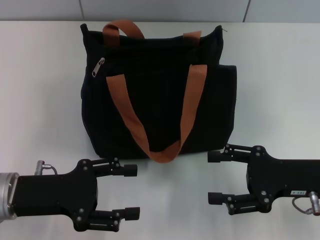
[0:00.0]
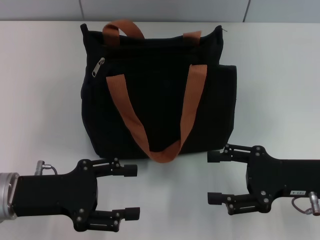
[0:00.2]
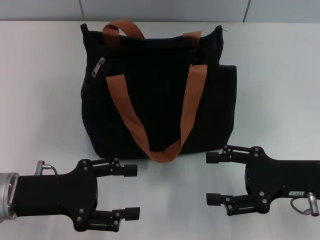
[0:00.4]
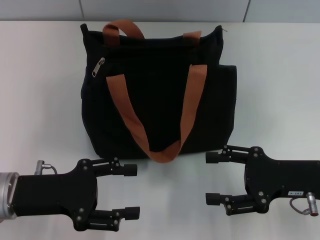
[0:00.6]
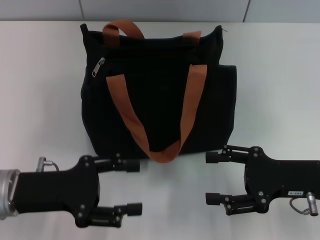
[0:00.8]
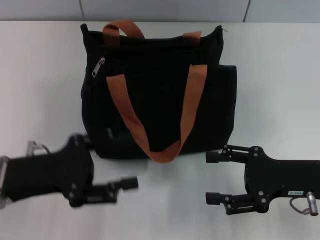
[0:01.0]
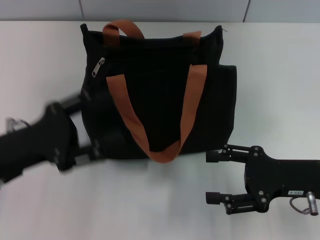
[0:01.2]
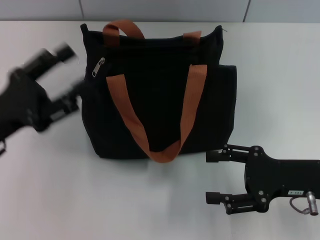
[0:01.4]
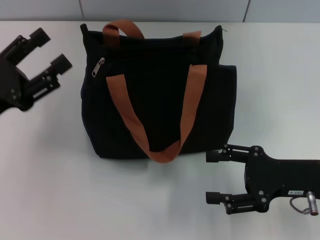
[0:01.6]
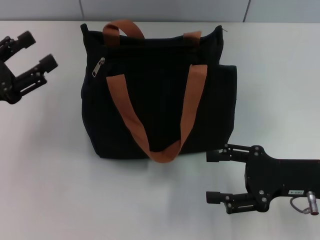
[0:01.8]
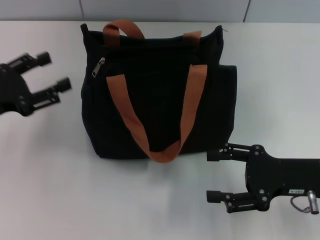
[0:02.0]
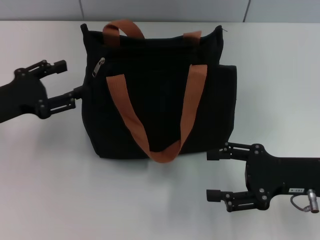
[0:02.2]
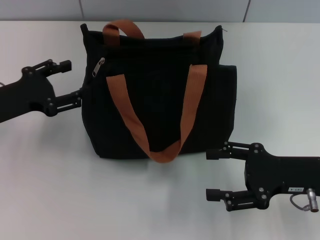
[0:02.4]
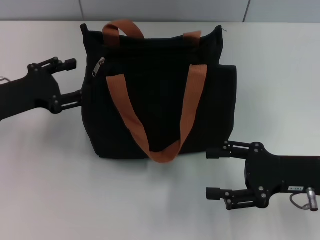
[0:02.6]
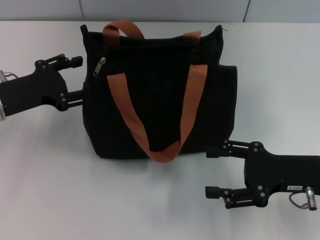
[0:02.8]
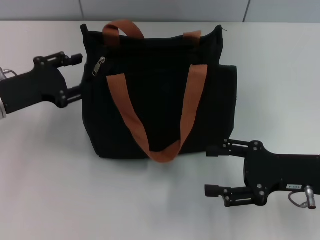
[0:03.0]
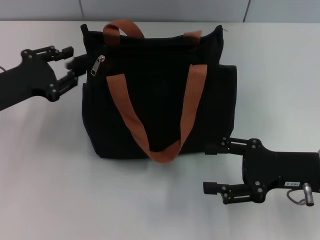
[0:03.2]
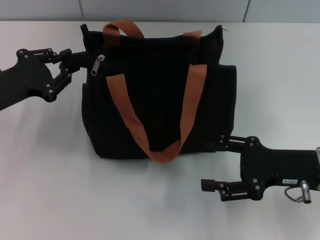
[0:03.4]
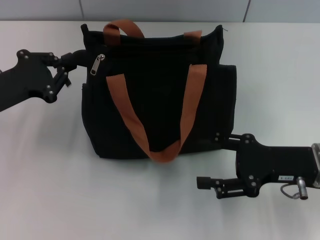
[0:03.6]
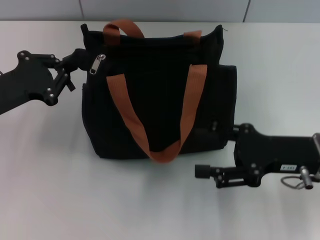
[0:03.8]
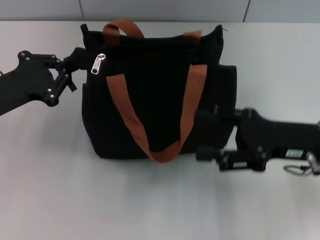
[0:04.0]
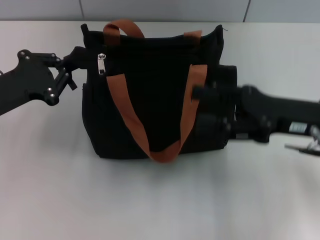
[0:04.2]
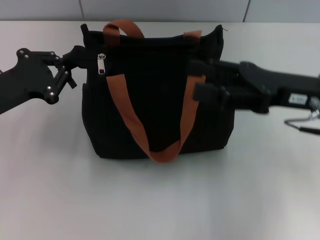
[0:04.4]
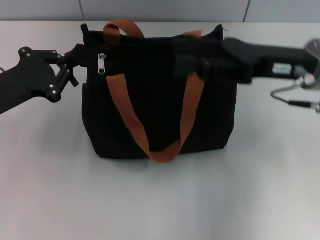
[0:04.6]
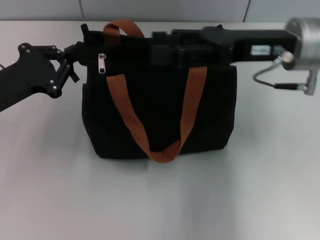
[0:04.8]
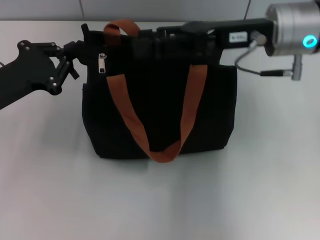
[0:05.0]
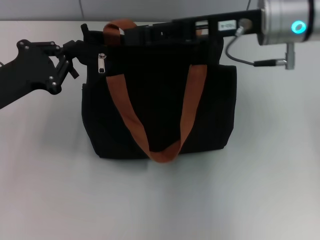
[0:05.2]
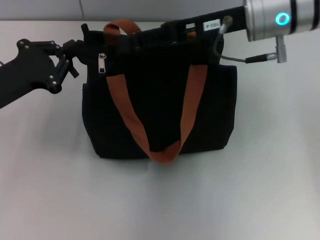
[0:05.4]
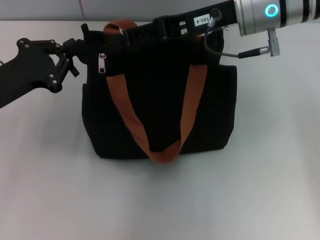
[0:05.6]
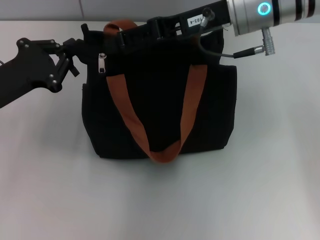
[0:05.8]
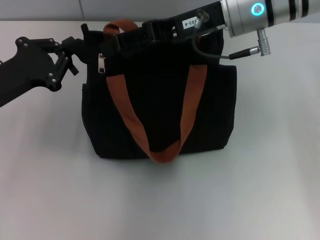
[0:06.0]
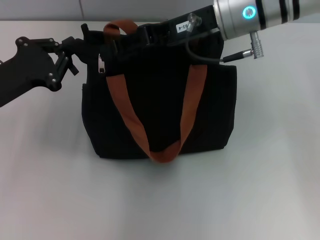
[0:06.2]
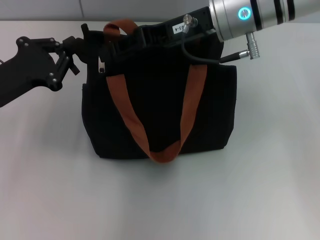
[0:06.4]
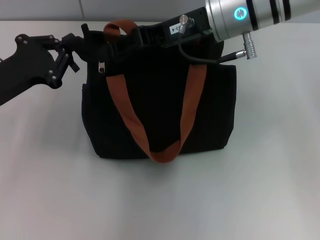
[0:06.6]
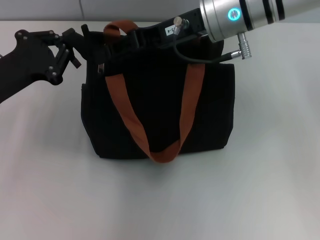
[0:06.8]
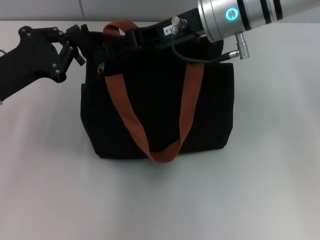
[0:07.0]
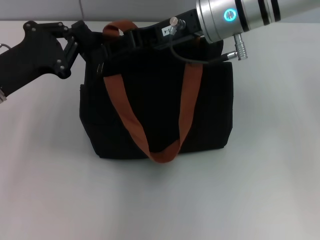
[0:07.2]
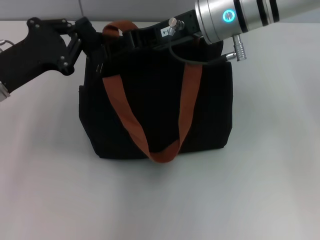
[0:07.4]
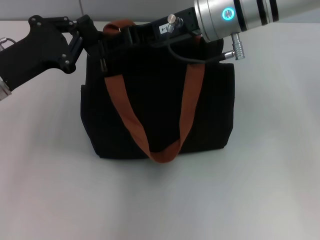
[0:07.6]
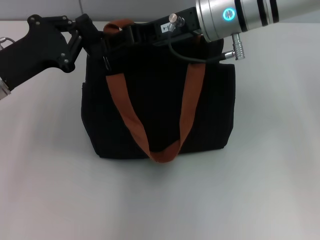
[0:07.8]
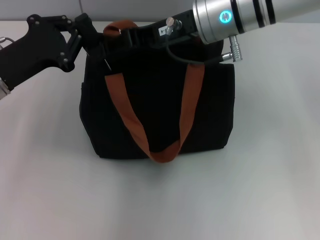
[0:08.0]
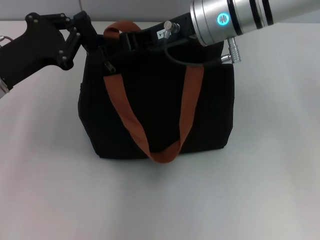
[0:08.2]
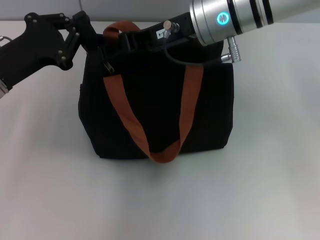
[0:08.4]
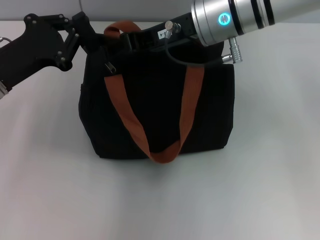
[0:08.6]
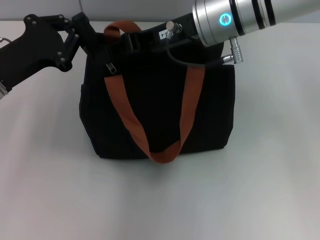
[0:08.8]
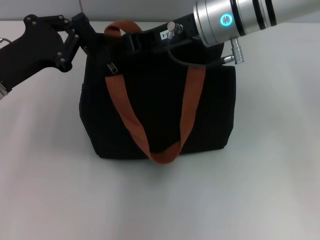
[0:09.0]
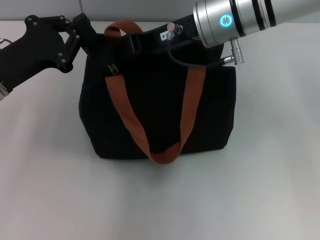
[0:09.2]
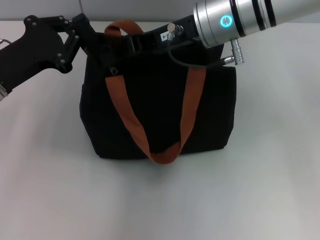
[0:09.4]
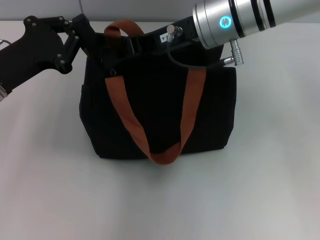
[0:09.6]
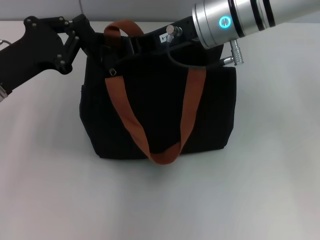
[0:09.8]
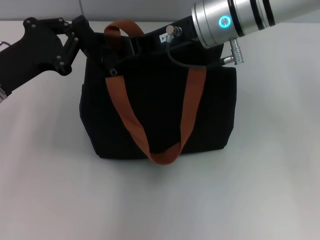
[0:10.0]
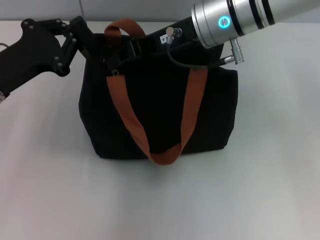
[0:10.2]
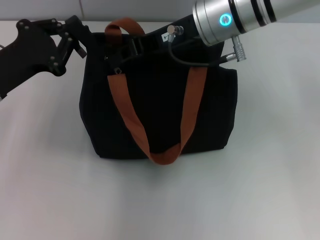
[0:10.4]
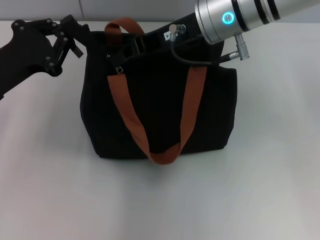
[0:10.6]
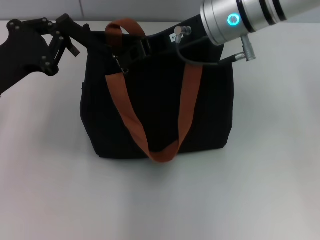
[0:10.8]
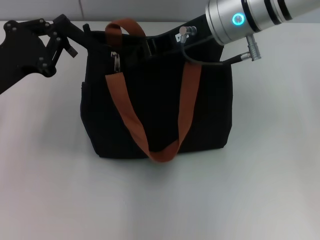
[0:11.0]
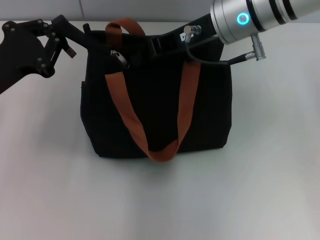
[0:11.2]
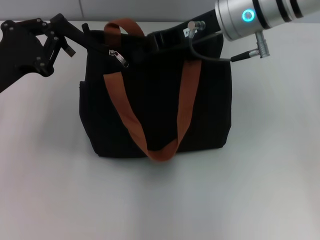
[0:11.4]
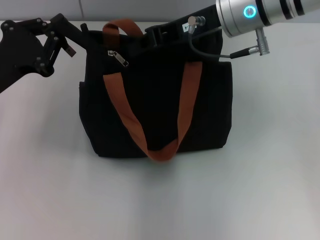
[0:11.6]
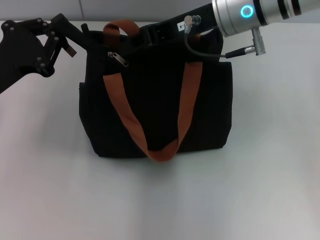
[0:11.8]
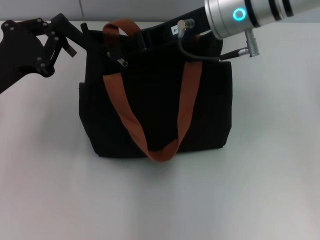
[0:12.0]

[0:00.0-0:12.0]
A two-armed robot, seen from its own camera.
0:00.0 to 0:01.6: The left gripper shifts by approximately 5 cm.
0:01.6 to 0:03.0: The left gripper shifts some 5 cm forward.
0:03.0 to 0:04.4: The left gripper closes its fingers. Meanwhile the right gripper goes about 10 cm upward and forward.
0:04.4 to 0:06.0: The right gripper is displaced to the left, forward and upward by some 15 cm.
0:06.0 to 0:07.6: The grippers stay close to where they were, moving slightly.
0:07.6 to 0:09.0: Both grippers stay about where they are.
0:09.0 to 0:12.0: The grippers stay close to where they were, moving slightly.

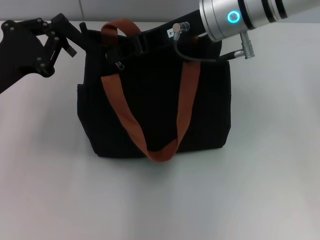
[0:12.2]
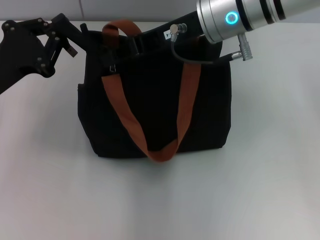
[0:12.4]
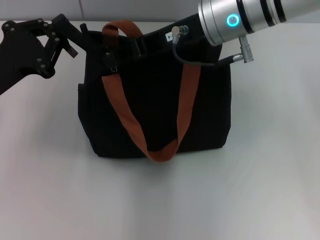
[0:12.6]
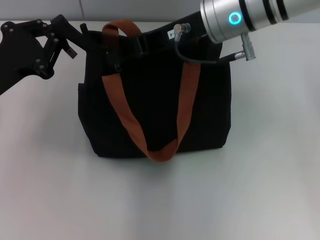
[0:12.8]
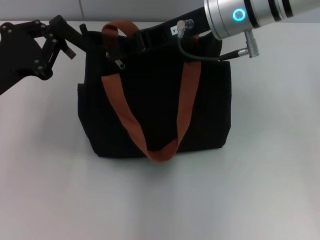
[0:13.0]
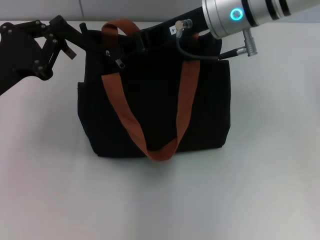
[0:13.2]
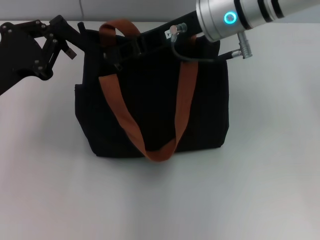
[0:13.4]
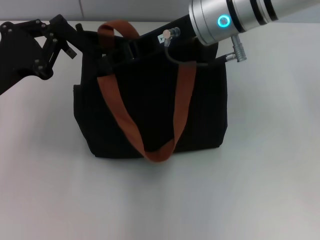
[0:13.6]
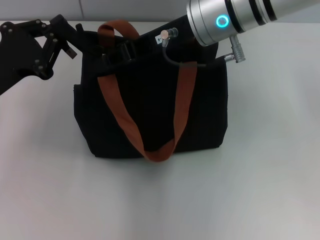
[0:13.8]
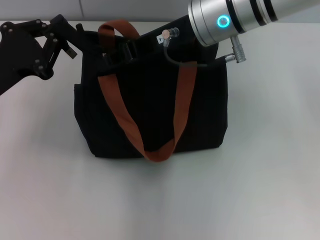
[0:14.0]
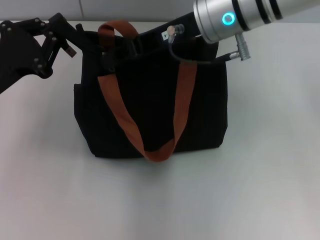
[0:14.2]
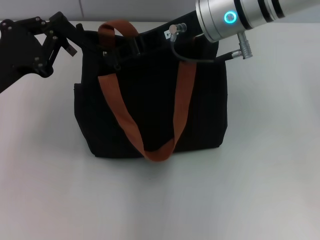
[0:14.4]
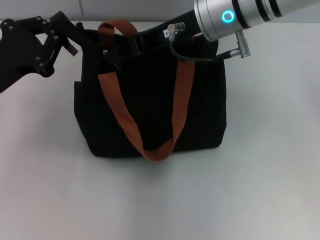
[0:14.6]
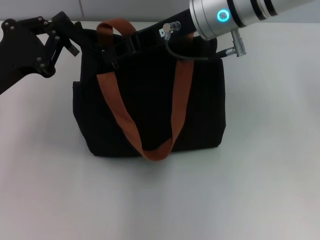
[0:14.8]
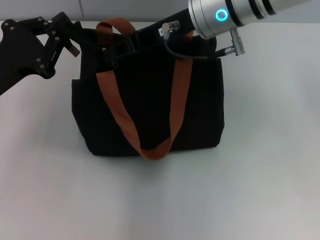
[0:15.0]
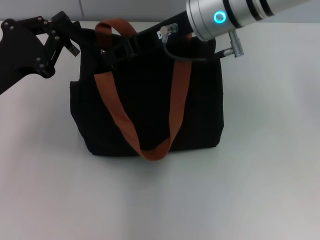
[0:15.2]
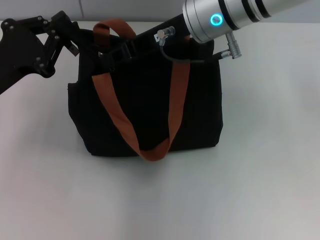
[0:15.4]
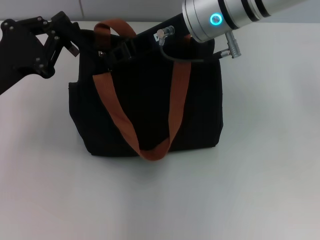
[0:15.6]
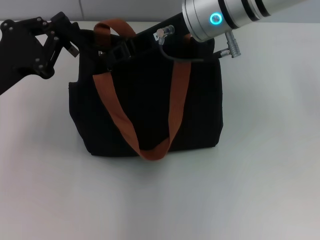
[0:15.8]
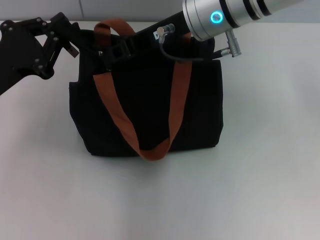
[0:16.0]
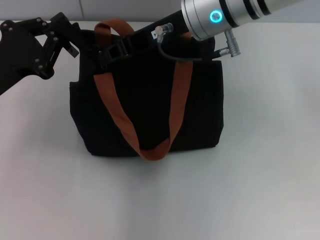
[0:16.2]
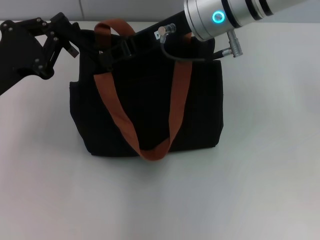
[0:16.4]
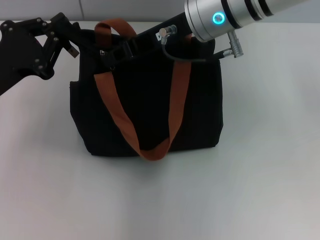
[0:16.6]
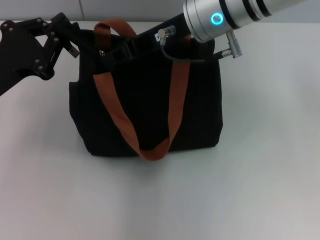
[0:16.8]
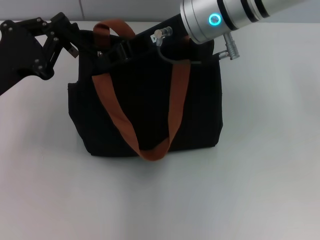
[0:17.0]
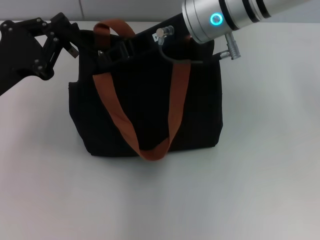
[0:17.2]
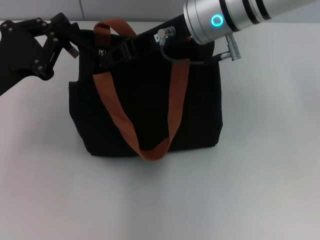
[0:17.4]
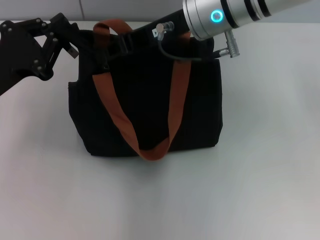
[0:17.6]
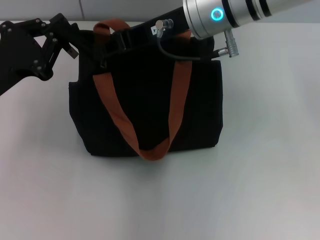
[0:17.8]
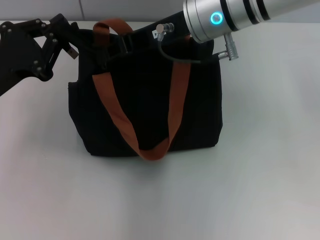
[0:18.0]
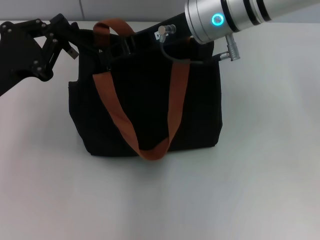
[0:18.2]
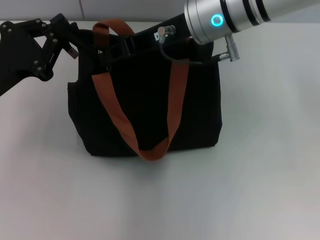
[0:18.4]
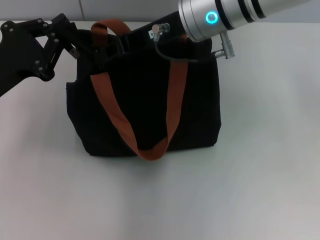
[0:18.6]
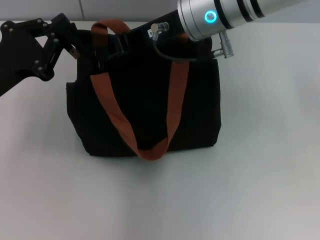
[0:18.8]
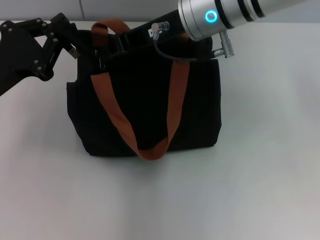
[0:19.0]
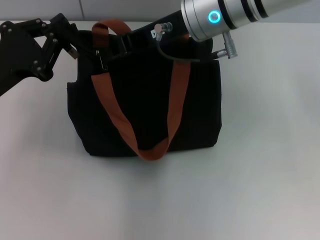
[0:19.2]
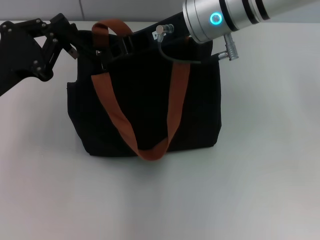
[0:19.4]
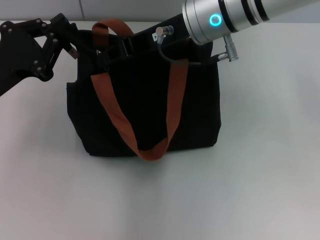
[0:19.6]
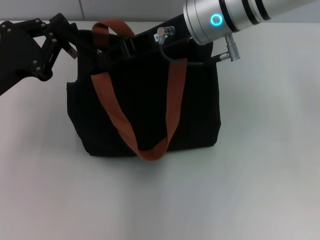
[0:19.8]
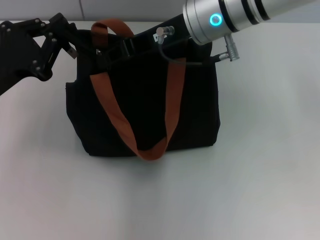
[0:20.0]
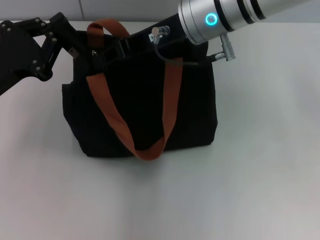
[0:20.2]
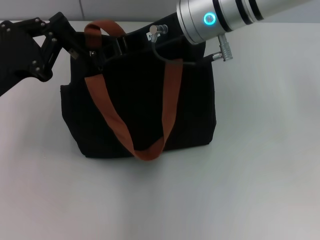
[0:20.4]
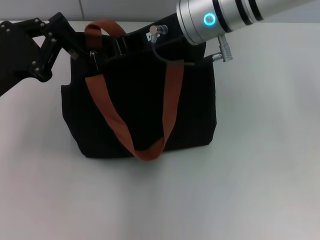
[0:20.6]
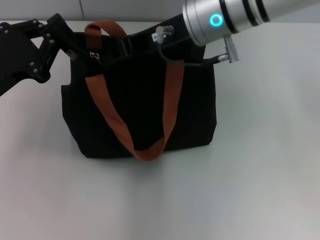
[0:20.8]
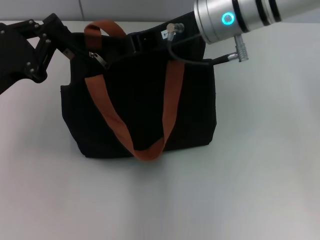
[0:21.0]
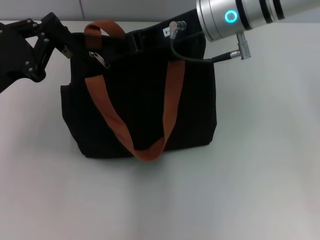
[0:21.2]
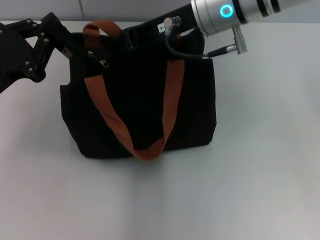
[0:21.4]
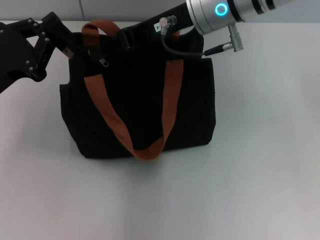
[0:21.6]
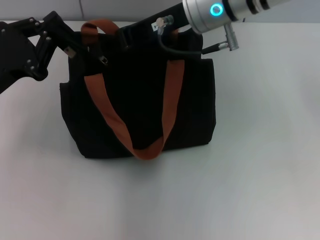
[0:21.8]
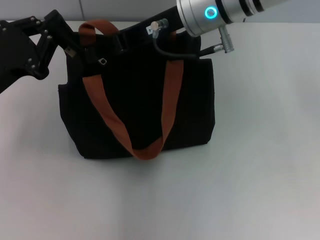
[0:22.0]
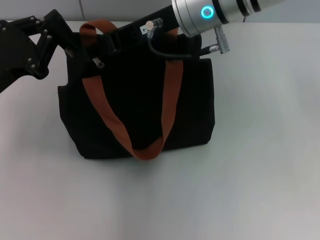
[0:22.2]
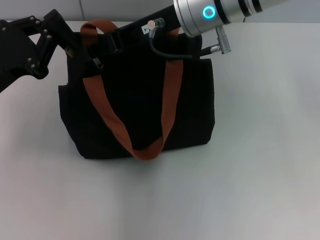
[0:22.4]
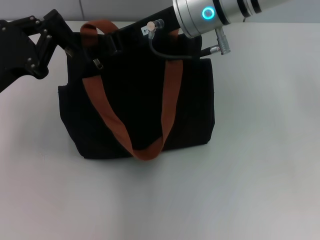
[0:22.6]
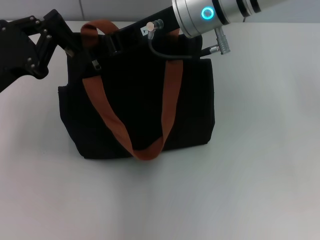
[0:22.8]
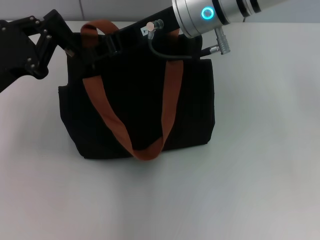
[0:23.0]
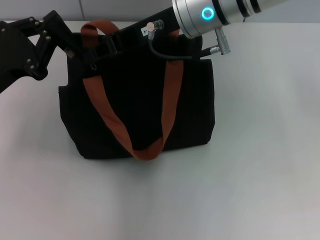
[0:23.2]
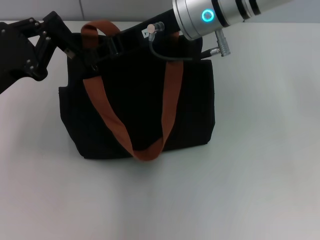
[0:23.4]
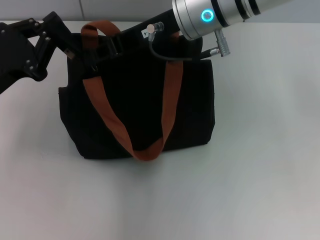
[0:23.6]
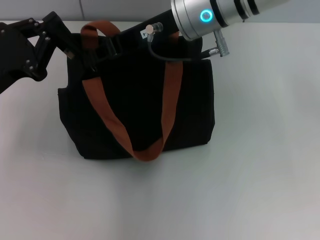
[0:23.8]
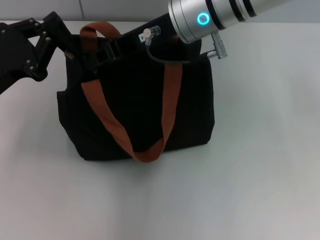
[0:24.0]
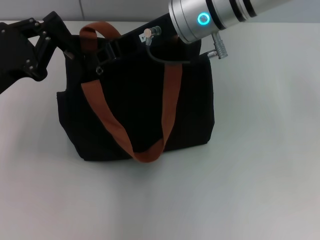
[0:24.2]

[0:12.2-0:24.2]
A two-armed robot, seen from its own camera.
0:12.2 to 0:13.8: The grippers move only a little.
0:13.8 to 0:15.2: The two grippers keep their place.
0:15.2 to 0:16.6: Neither gripper changes place.
0:16.6 to 0:18.2: The grippers make only small movements.
0:18.2 to 0:19.8: The two grippers keep their place.
0:19.8 to 0:21.2: There are only small adjustments of the grippers.
0:21.2 to 0:22.6: The right gripper opens up.
0:22.6 to 0:24.2: The right gripper closes.
